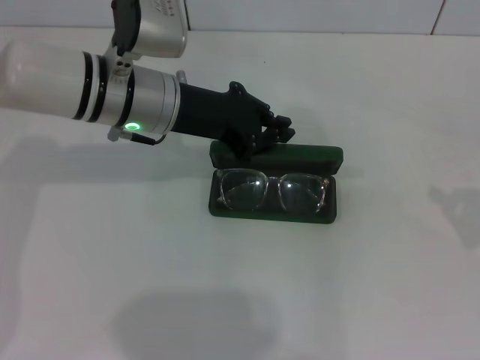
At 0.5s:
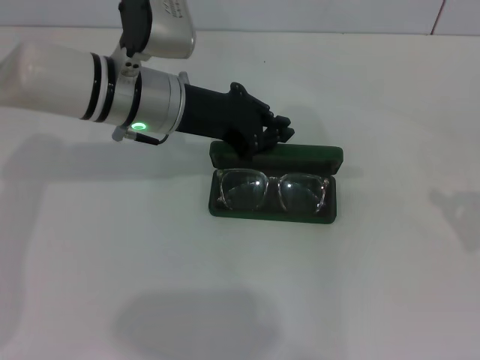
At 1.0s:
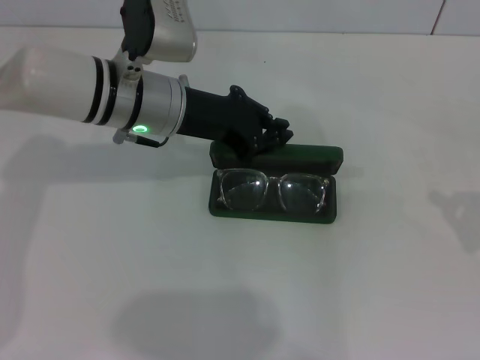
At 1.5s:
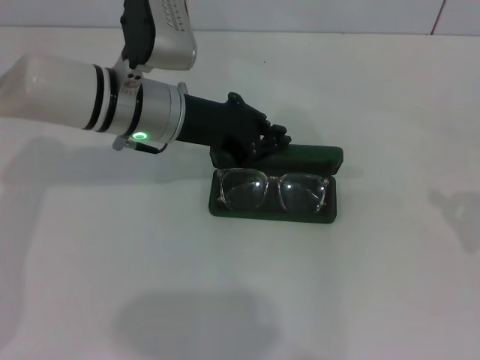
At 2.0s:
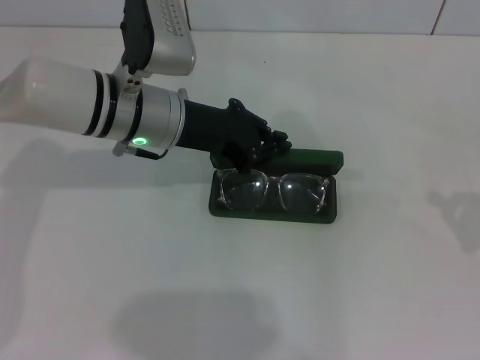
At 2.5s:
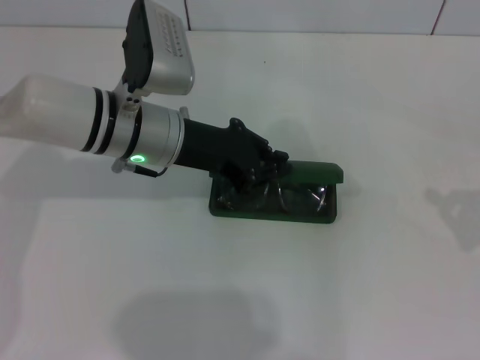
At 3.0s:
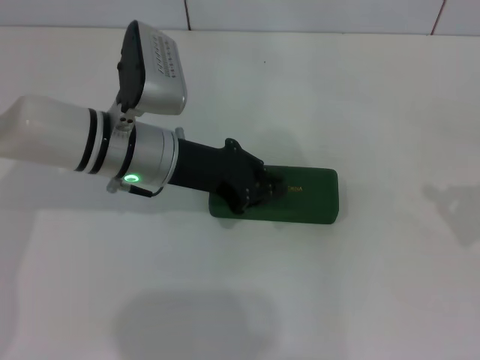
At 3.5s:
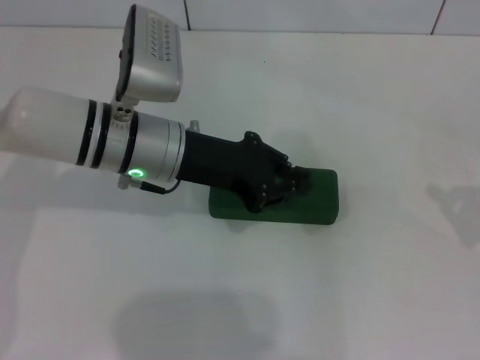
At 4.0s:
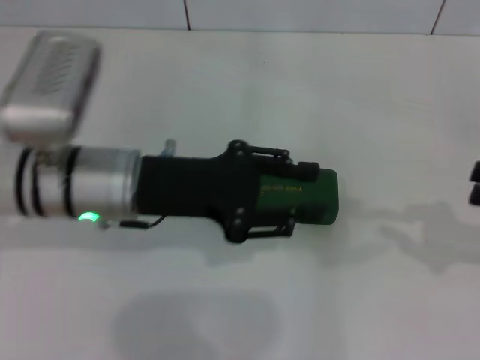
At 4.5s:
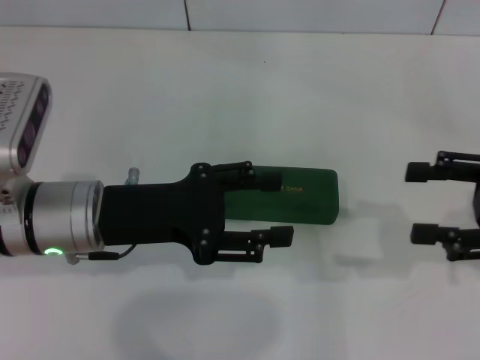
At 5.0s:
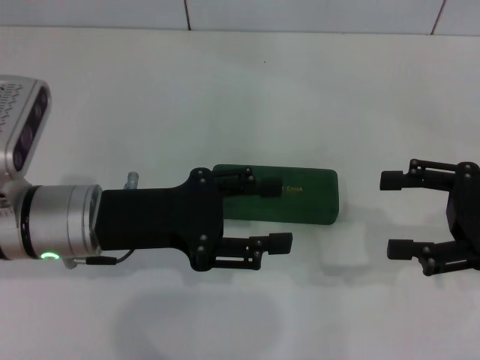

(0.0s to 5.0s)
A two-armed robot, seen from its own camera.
Step, 0.0s - 3.0s: Close the glasses case with your left hand.
0.0s - 2.5s: The grippers stay close to where they were, moving slightly.
2.5s - 5.0s: The right gripper heads to the left, covering some 10 cm, and opens up, while the left gripper heads backward and to the left, covering approximately 10 cm, and opens its fingers.

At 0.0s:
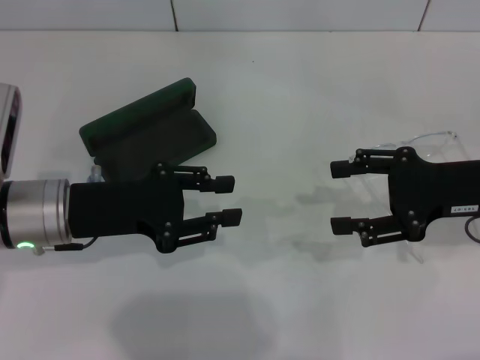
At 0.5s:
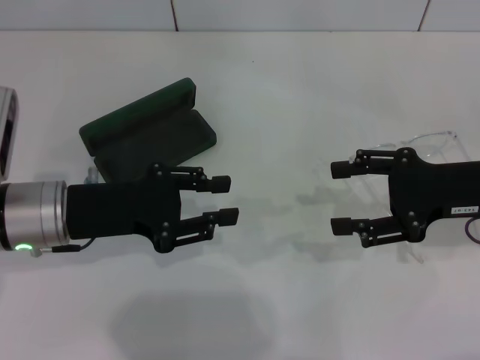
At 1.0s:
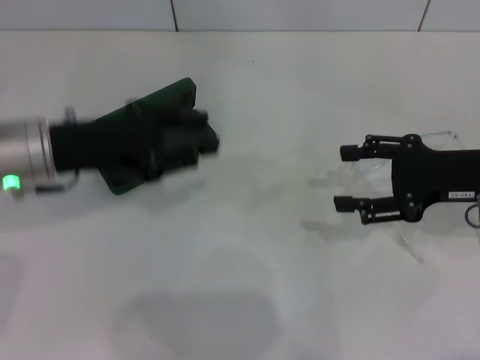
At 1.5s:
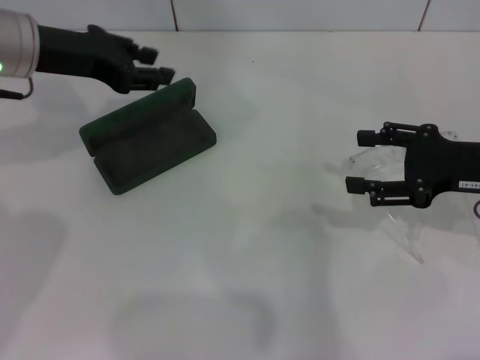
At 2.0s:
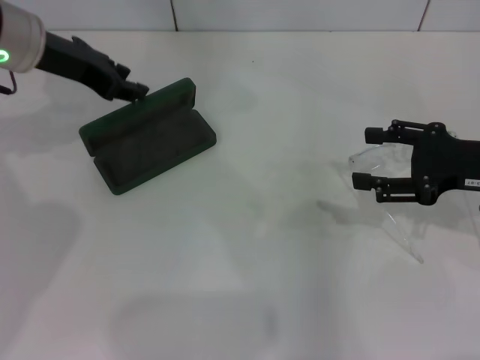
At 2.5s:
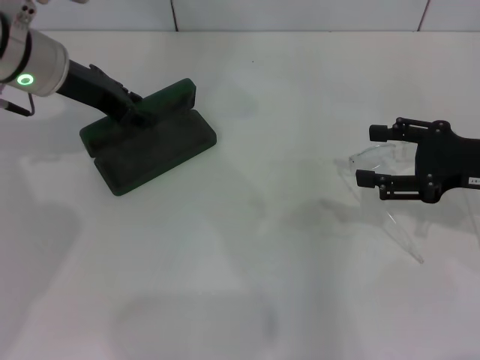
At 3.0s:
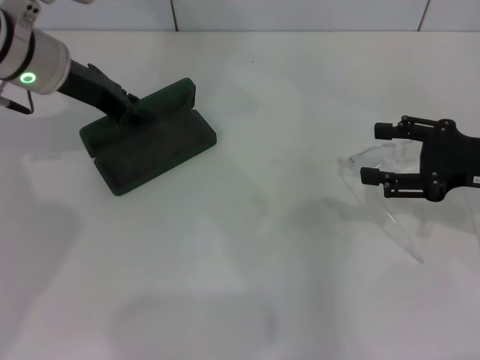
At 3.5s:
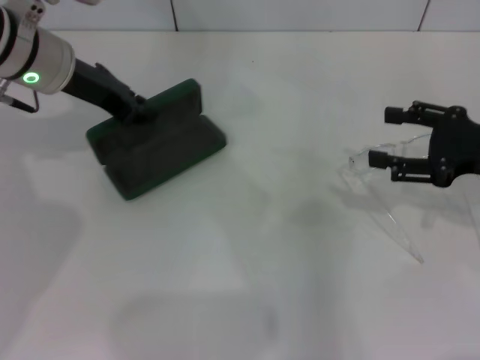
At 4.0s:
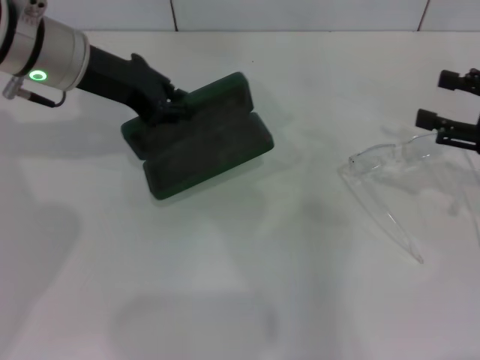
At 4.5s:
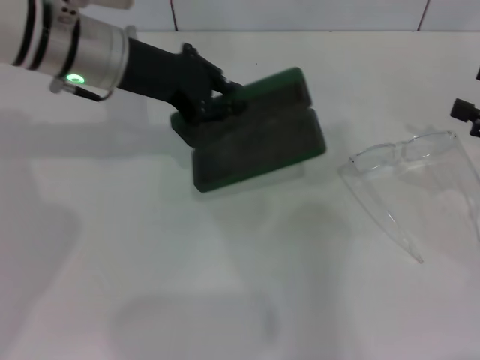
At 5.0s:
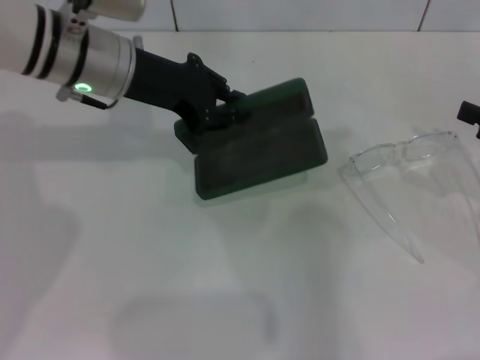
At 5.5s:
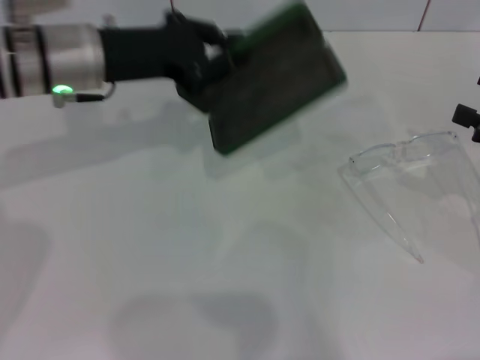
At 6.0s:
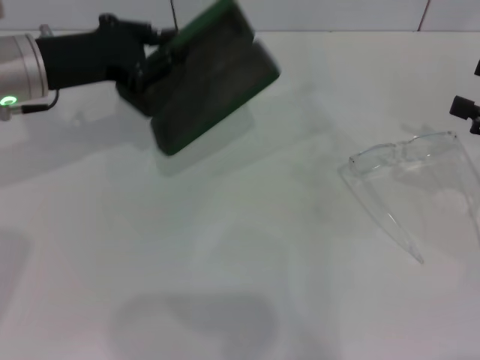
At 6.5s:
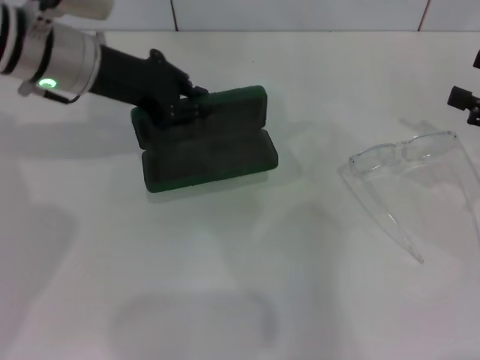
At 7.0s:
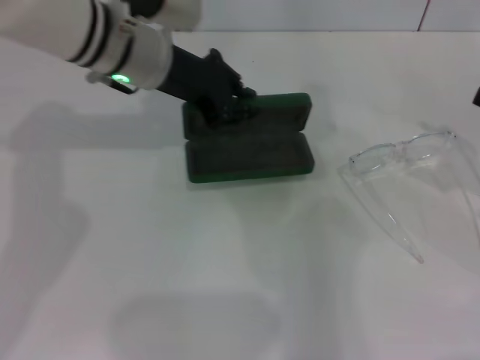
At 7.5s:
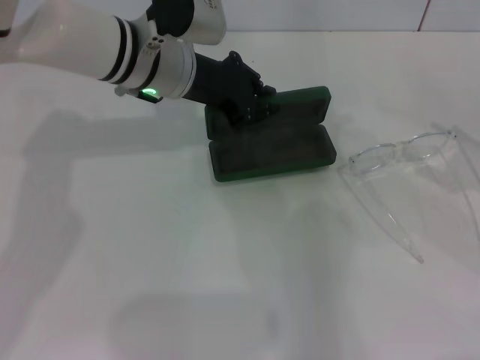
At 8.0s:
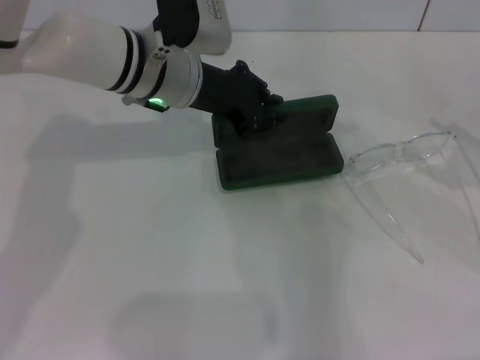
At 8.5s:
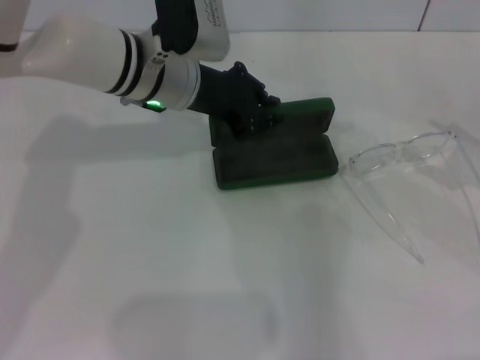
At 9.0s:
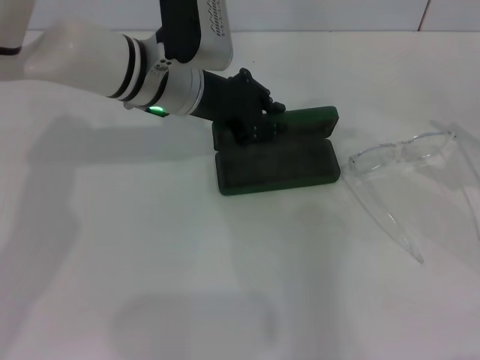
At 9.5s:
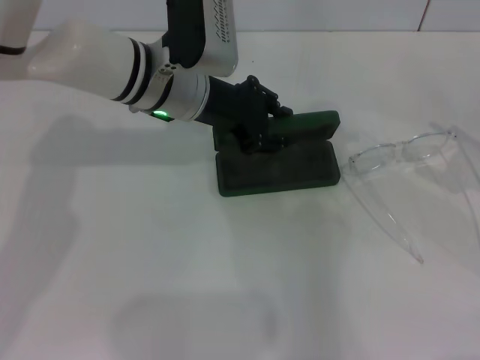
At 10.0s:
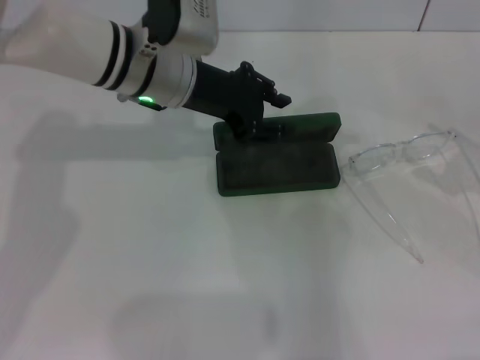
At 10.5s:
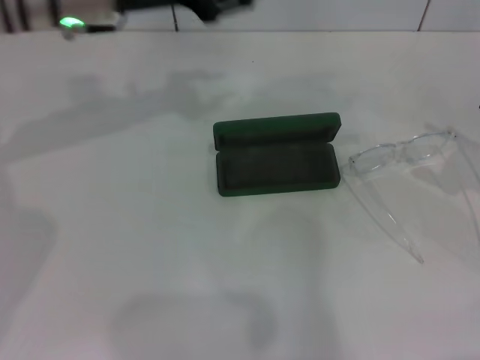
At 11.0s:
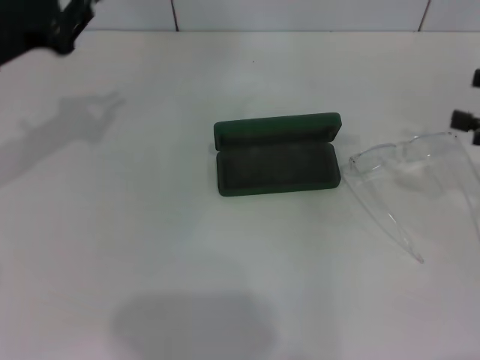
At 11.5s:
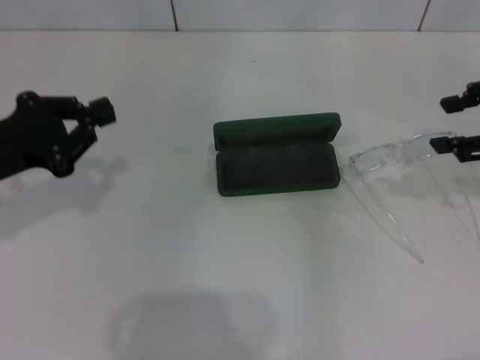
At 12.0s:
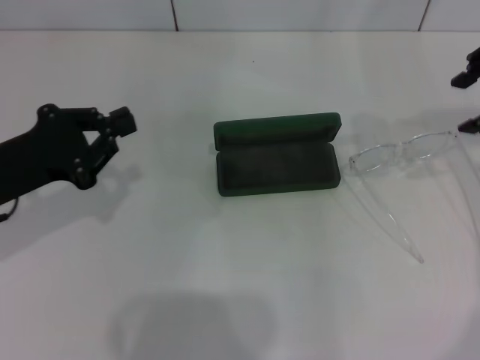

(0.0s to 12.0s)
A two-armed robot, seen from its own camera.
Step, 0.0s - 2.5s: Grab the glasses case with your left hand.
Step, 3.0s - 9.5s: Place the glasses case in the center of the table with your left hand.
0.0s - 2.0s: The left gripper is displaced forward and upward by roughly 15 cm.
2.0s - 4.0s: The left gripper closes up. Meanwhile the right gripper travels to the right by some 5 cm.
4.0s - 6.0s: The left gripper moves some 5 cm.
6.0s - 8.0s: The left gripper moves to the right, approximately 15 cm.
8.0s - 10.0s: The left gripper opens up.
10.0s - 12.0s: The left gripper heads to the left and backward, covering roughly 25 cm, and closes up. The right gripper goes about 20 cm upward, to the left and forward.

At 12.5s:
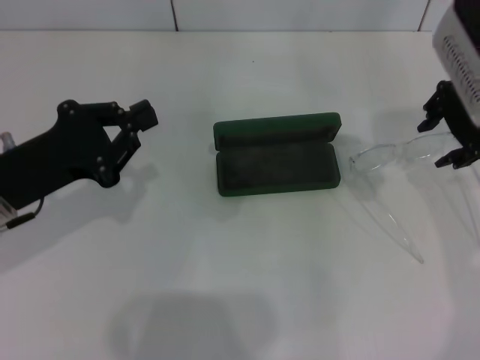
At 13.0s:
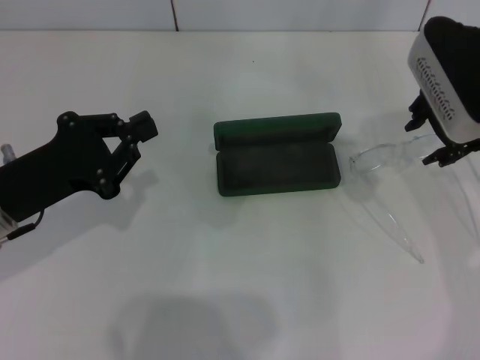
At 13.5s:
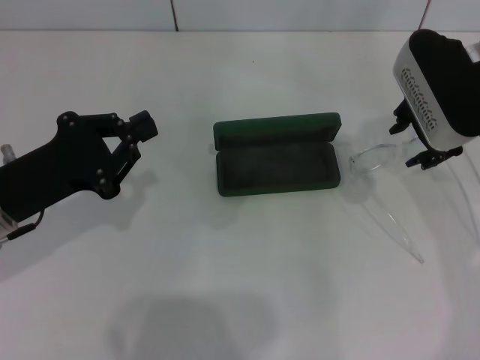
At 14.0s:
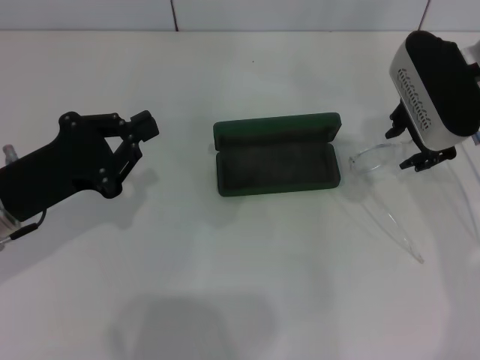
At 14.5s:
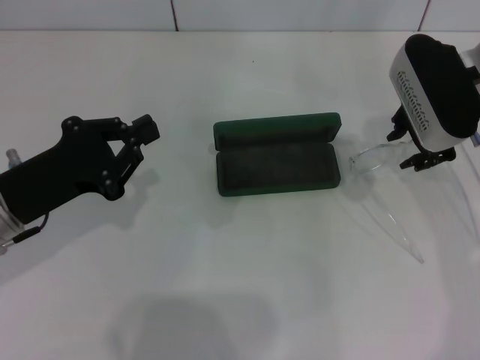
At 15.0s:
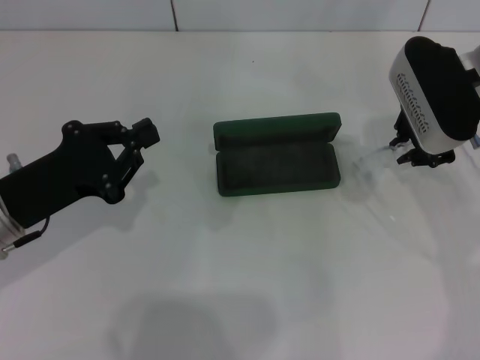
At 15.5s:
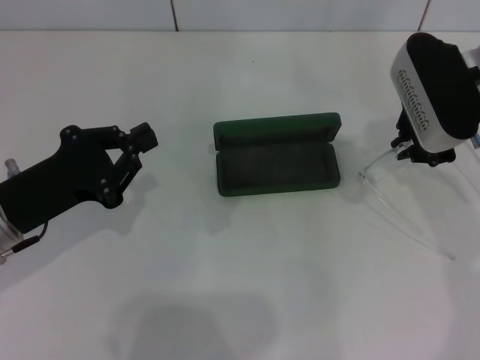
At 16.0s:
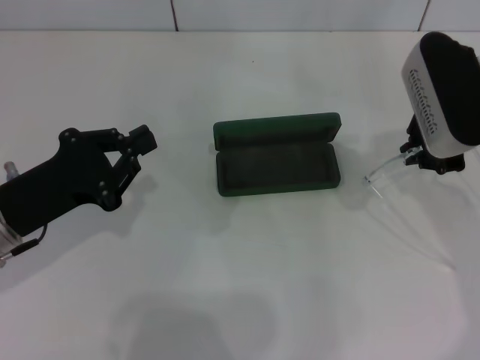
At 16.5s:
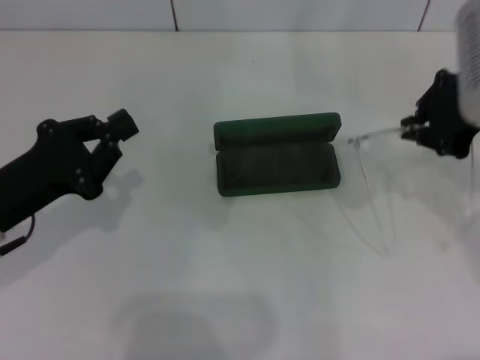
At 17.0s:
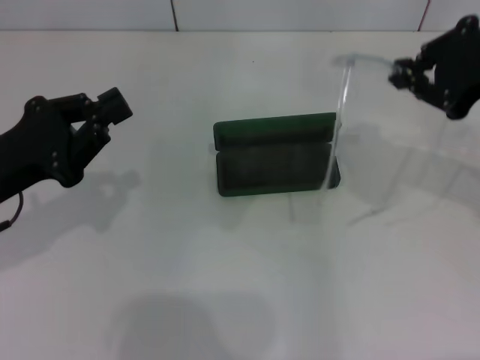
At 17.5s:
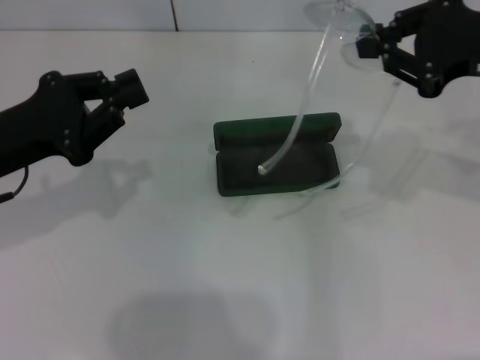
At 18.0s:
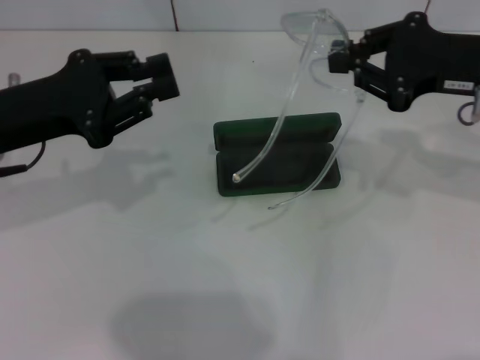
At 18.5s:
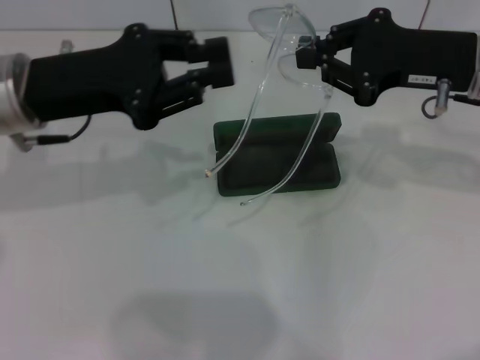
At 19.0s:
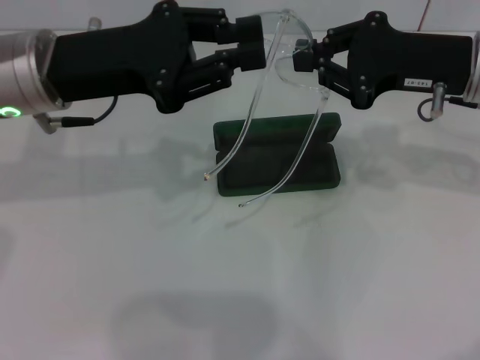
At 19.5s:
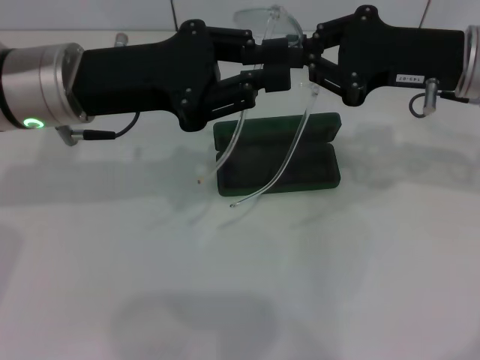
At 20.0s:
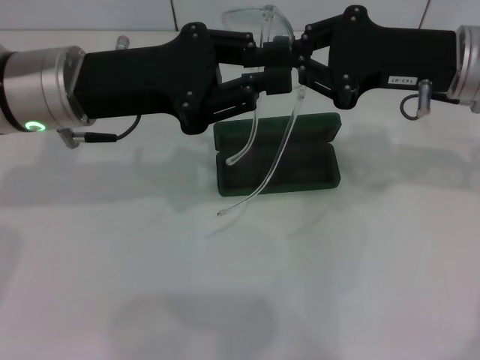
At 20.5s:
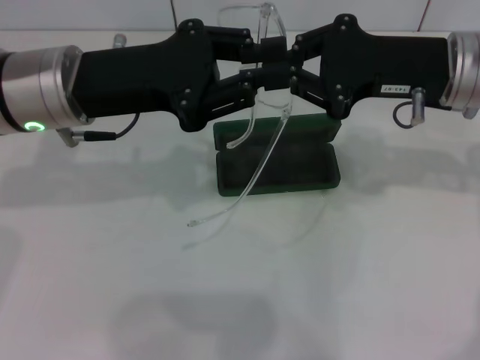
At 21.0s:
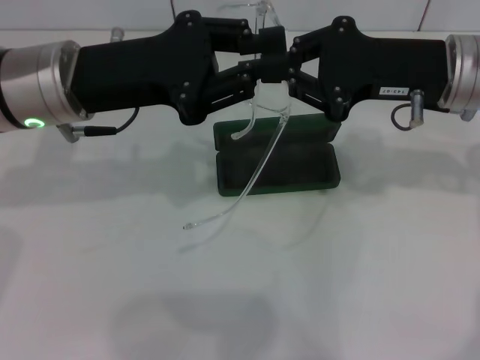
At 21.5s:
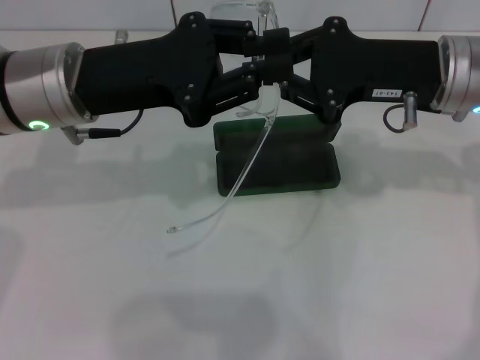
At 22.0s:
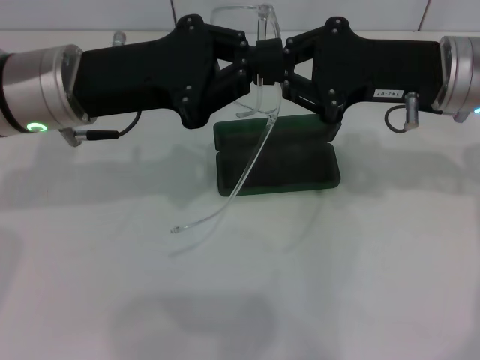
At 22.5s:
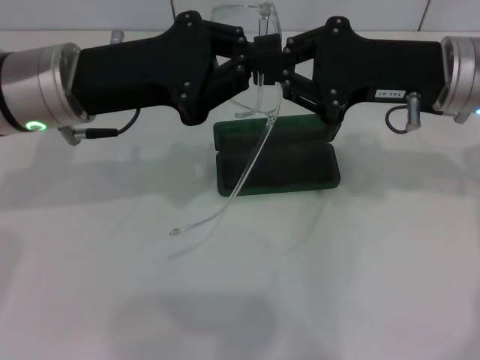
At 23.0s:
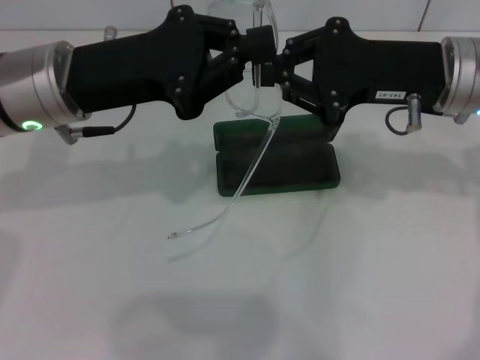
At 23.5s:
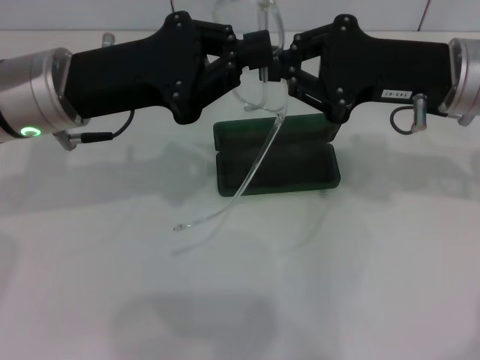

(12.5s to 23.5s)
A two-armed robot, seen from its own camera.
Step, 12.5s - 15.5s: Grab the eyeglass frame with your right hand.
12.5s - 14.5s: The right gripper moves roughly 5 cm.
14.5s - 16.0s: The right gripper closes its fingers.
16.0s - 18.0s: The left gripper goes roughly 10 cm upward and forward.
18.0s - 20.0s: The left gripper goes roughly 10 cm to the right.
20.0s - 21.5s: The grippers make only small movements.
21.5s - 23.5s: The left gripper closes.
